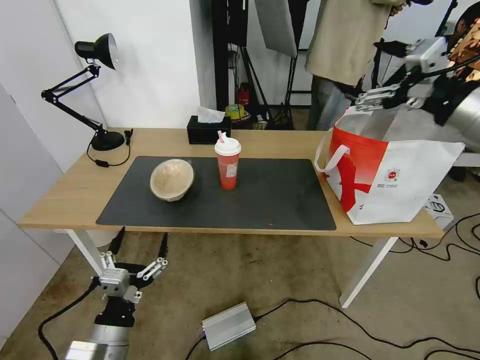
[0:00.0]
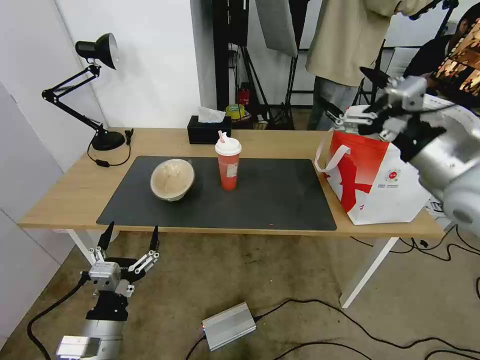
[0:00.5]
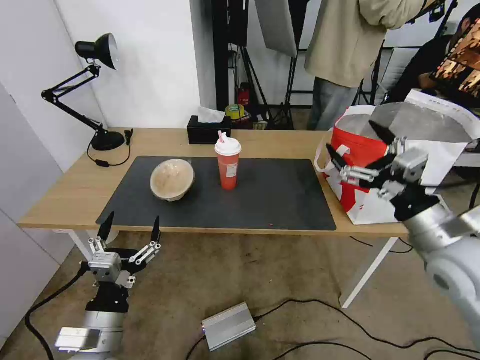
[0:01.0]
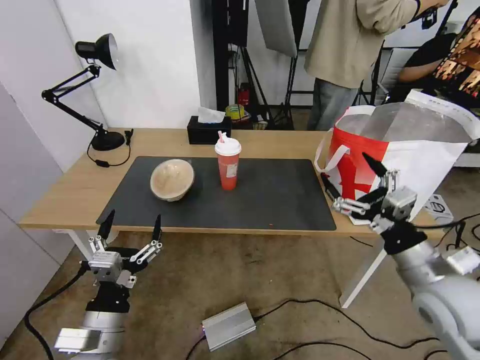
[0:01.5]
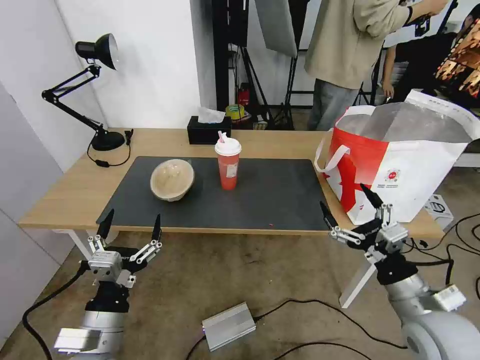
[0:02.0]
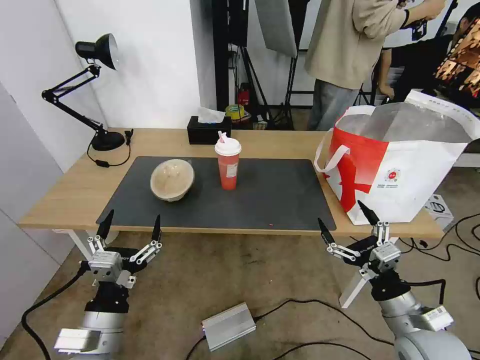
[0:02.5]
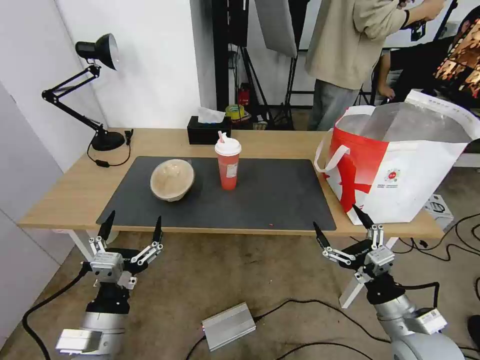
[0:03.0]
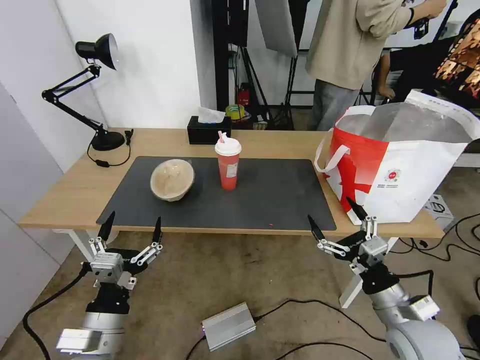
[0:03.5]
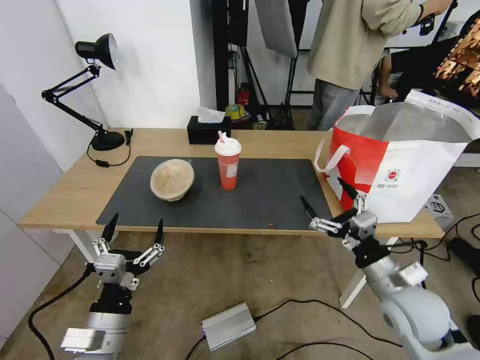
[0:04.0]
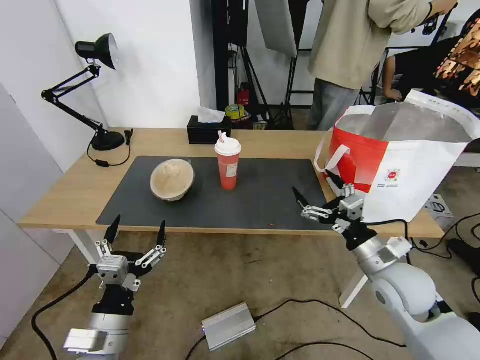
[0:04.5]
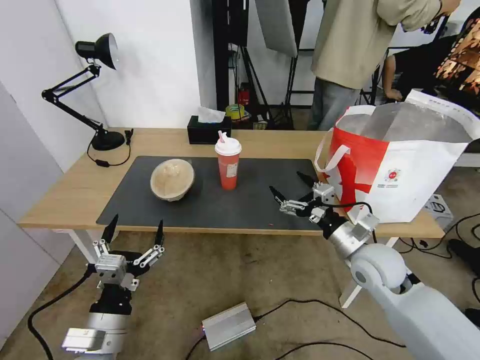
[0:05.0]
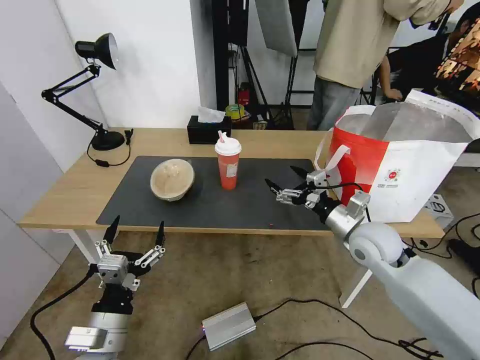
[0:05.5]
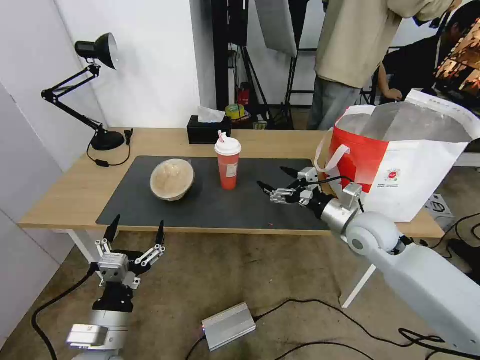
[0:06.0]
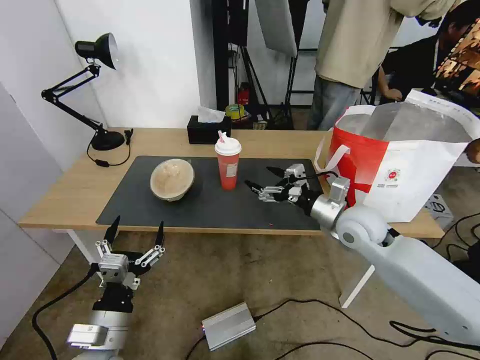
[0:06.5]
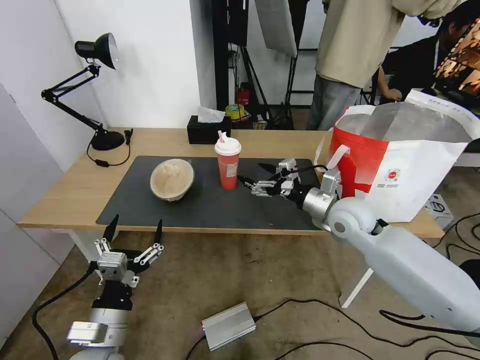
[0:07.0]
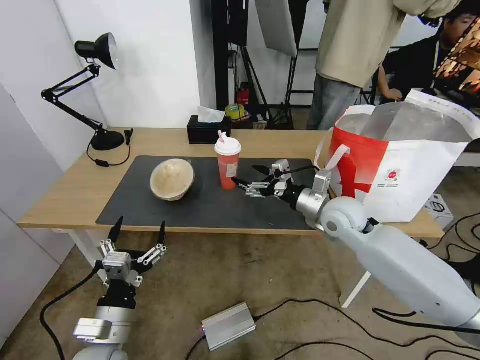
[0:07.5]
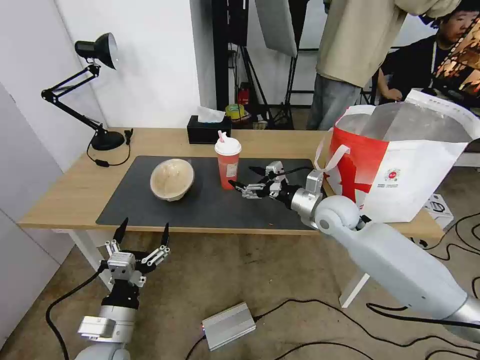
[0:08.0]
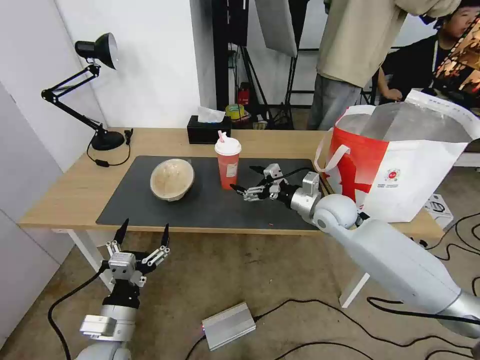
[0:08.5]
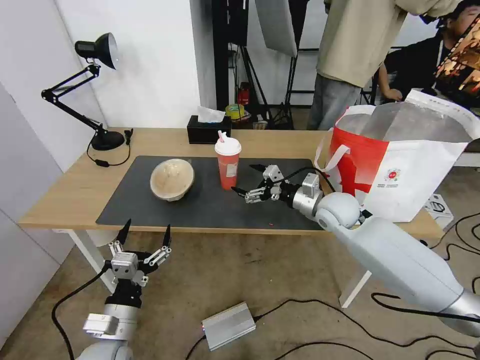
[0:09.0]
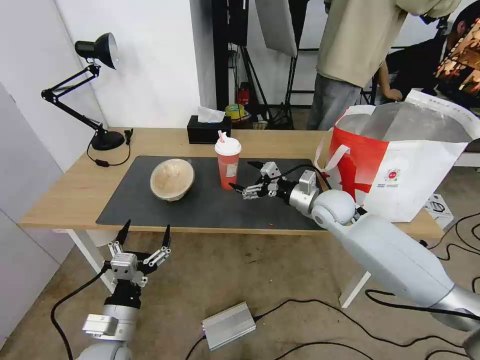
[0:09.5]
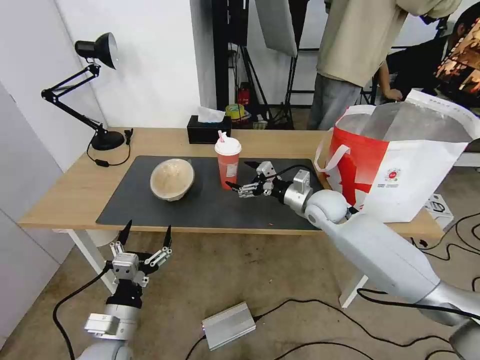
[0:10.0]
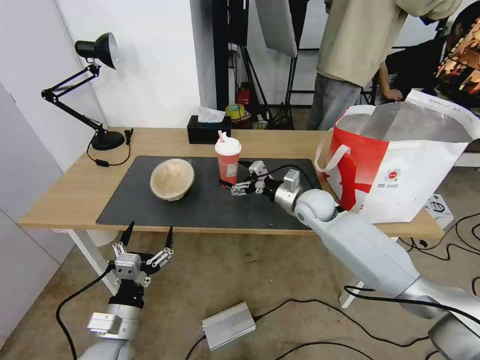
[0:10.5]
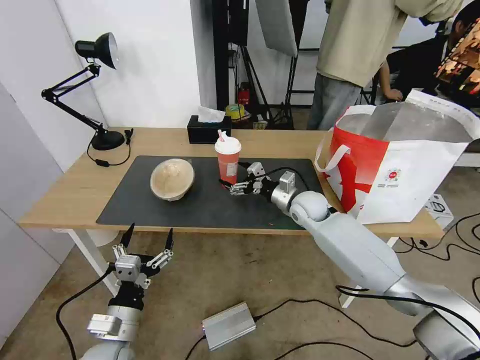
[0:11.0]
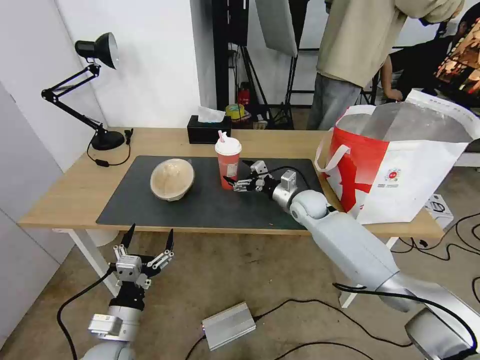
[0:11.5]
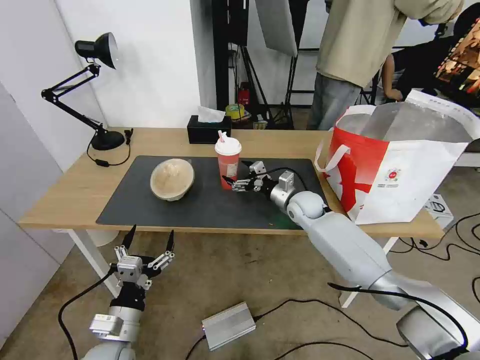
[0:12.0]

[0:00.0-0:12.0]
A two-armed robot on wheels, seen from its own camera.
Task of the whole recording: Pick up the trash from the table and place it into the takeout bag.
0.0 to 2.0 s: The right gripper heads downward and backward, covering about 30 cm.
2.0 to 4.0 s: The grippers stay close to where they were, moving slightly.
4.0 to 6.0 s: The right gripper travels forward by approximately 15 cm.
6.0 to 8.0 s: The right gripper moves forward and to the left, some 10 cm.
8.0 to 10.0 s: The grippers stay close to where they were, moving slightly.
10.0 to 12.0 s: The right gripper moves downward and forward, about 10 cm.

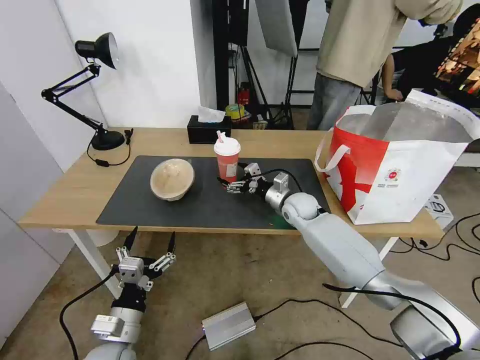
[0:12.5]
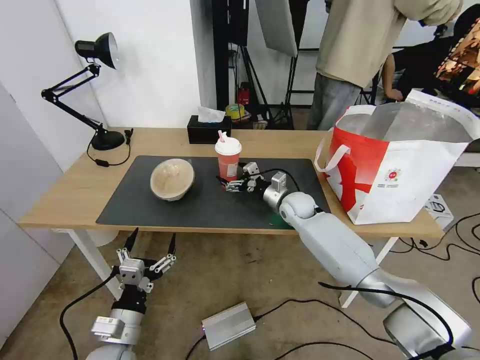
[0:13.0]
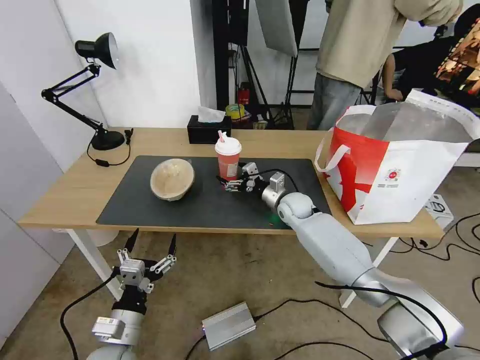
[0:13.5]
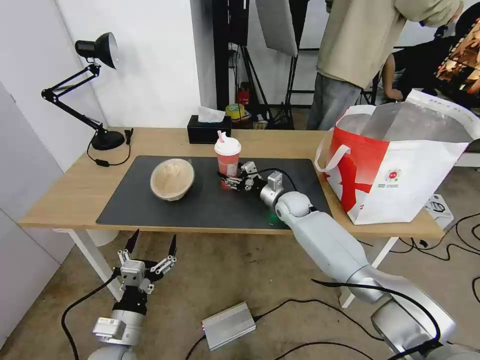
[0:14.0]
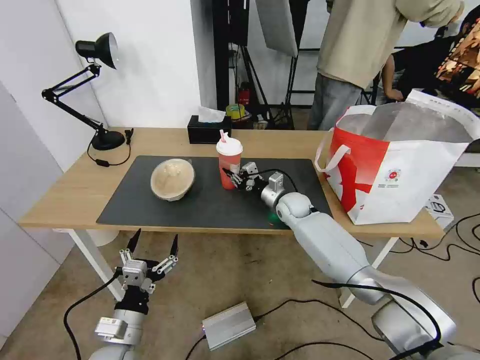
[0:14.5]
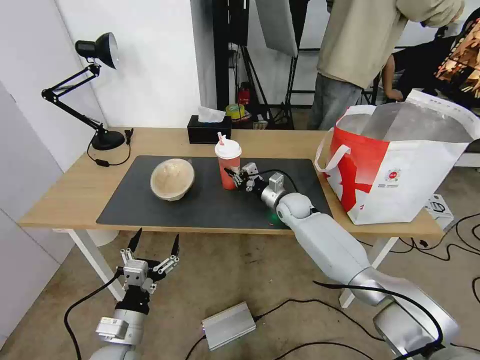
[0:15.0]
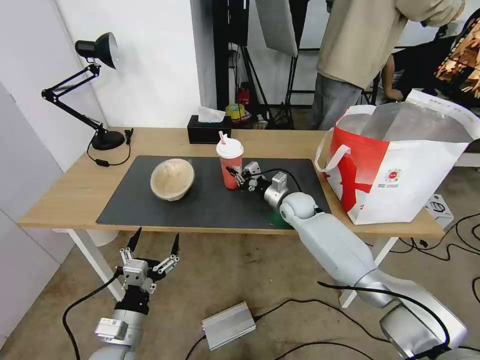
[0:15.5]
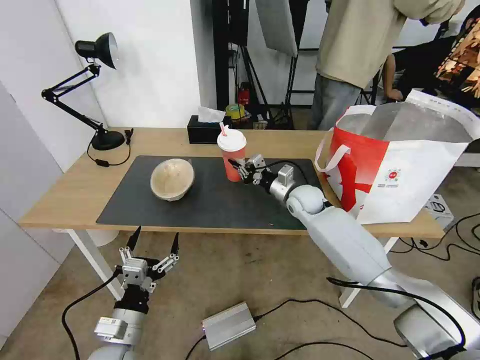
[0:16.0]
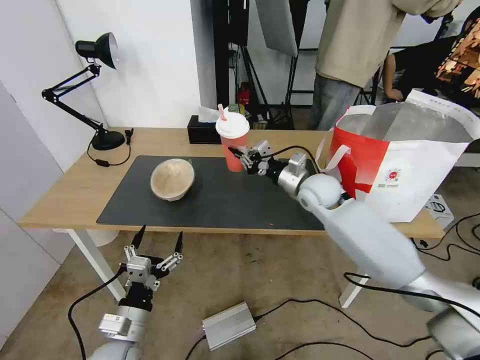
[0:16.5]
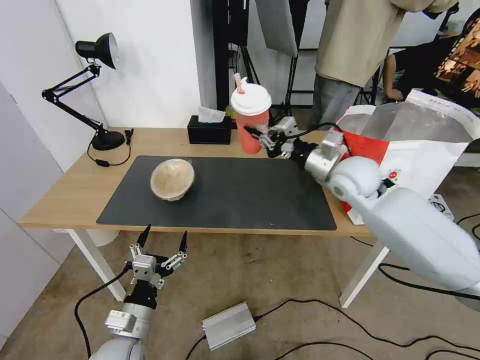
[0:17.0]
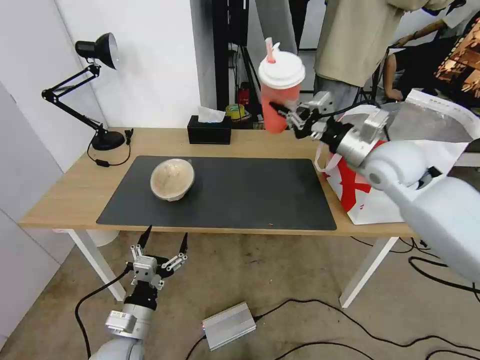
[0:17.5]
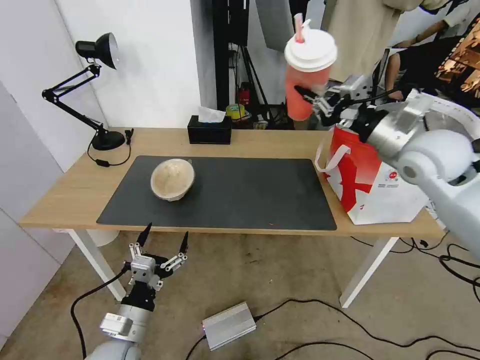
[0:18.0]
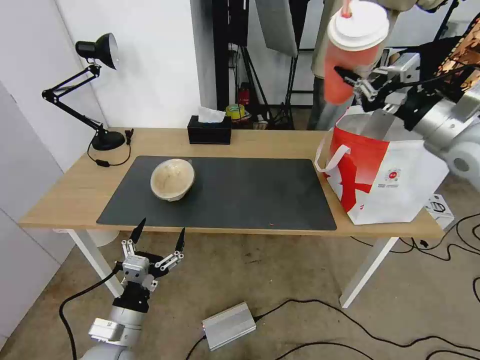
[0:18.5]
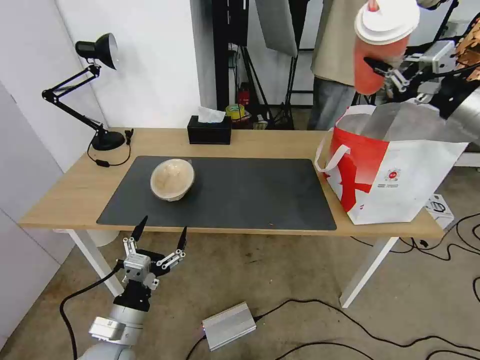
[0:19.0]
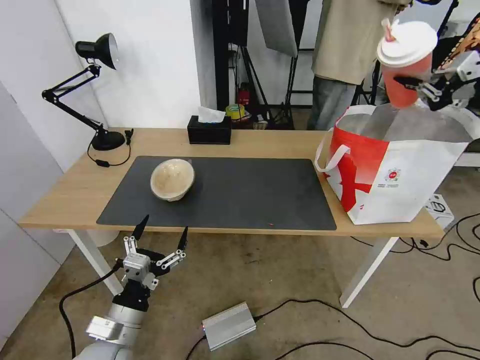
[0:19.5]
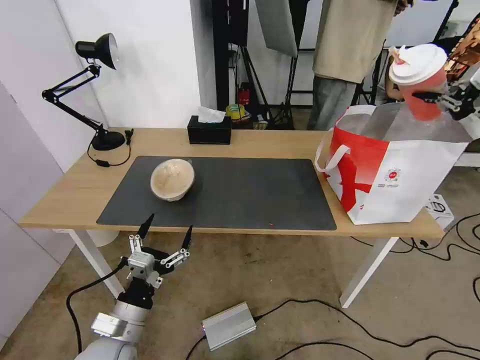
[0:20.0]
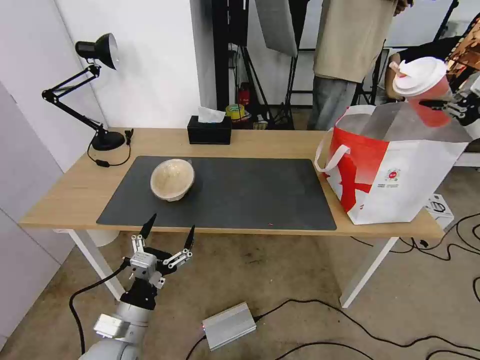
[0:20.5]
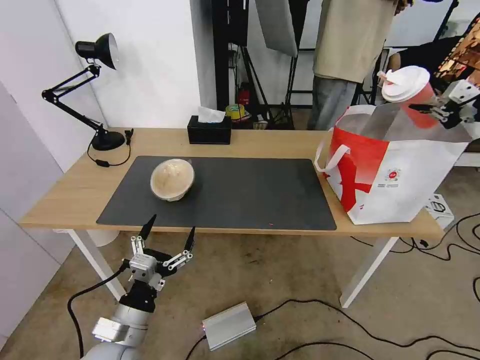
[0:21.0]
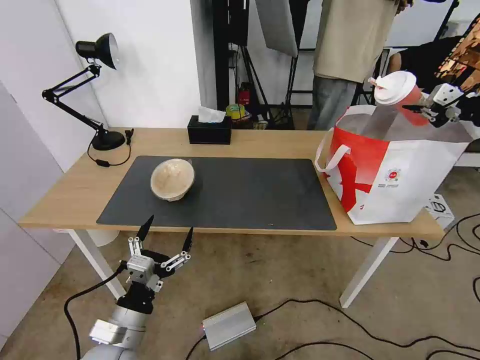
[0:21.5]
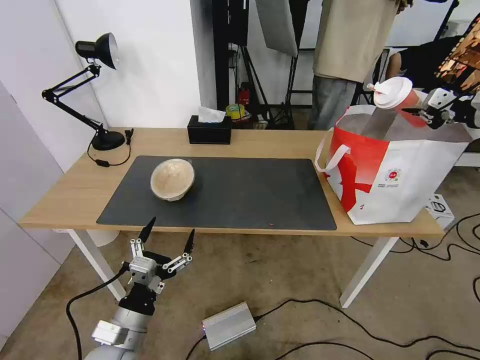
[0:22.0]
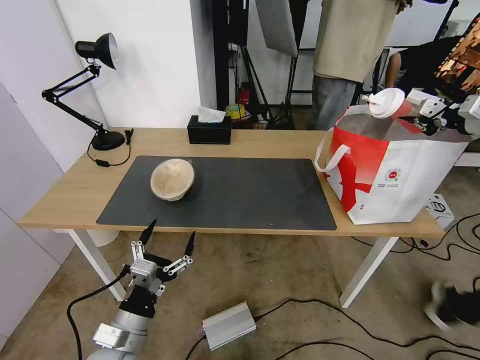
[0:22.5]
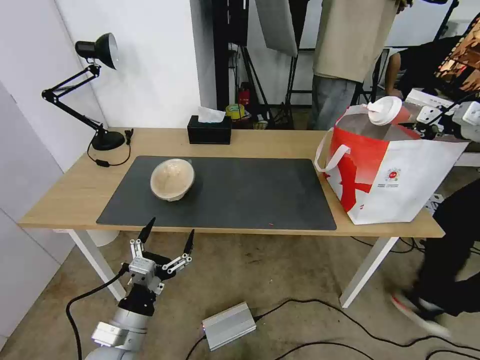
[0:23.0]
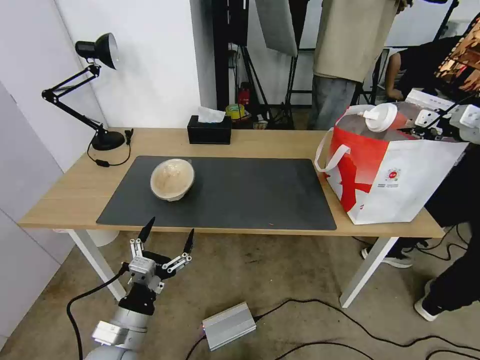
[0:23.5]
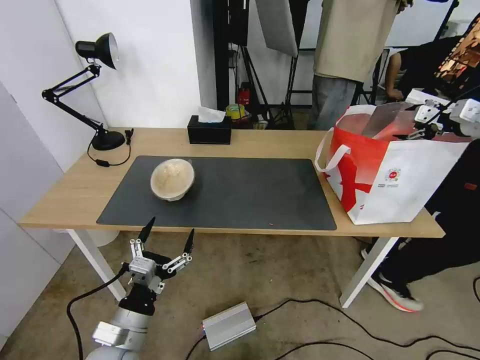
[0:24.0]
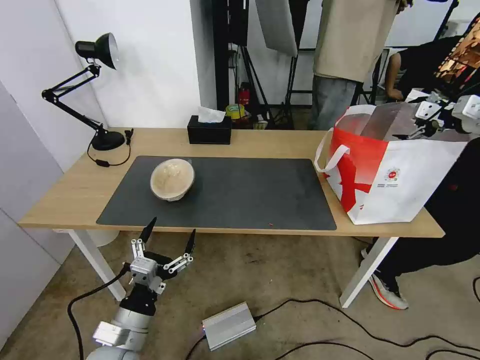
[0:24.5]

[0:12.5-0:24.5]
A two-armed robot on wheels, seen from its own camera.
Task of the whole recording: Pick up the trash from the table and place it into the takeout bag.
12.5 to 14.5 s: The right gripper closes up.
14.5 to 16.5 s: The right gripper shifts some 10 cm upward.
16.5 to 18.5 s: The right gripper travels upward, to the right and backward by approximately 30 cm.
18.5 to 20.5 s: The right gripper travels to the right by approximately 15 cm.
20.5 to 22.5 s: The right gripper is displaced forward and downward by some 10 cm.
22.5 to 24.5 s: The right gripper opens.

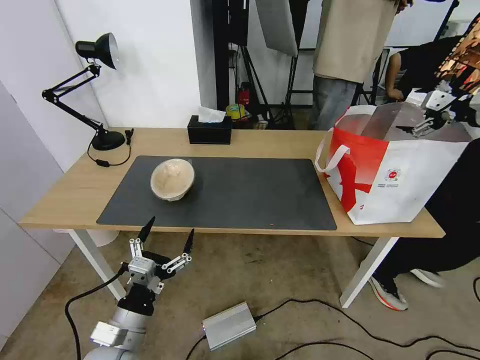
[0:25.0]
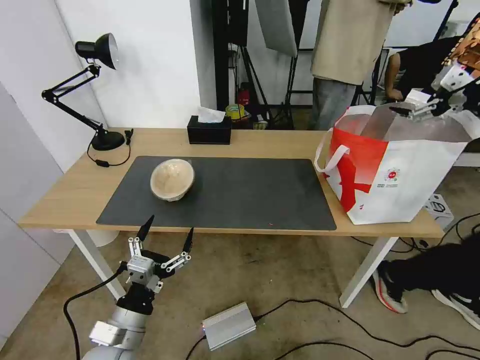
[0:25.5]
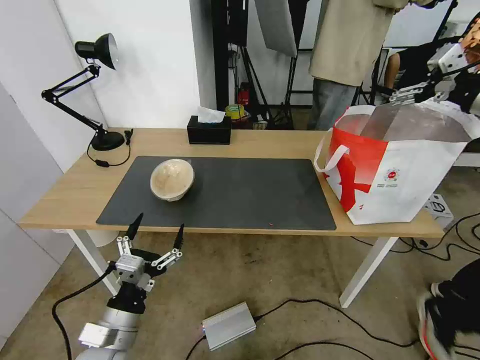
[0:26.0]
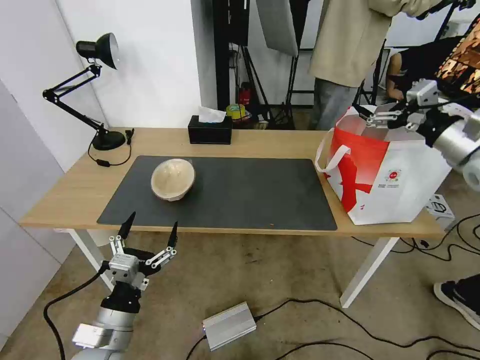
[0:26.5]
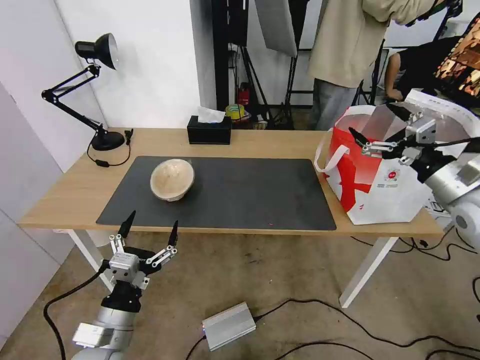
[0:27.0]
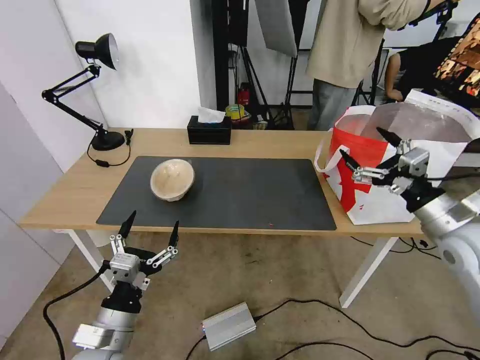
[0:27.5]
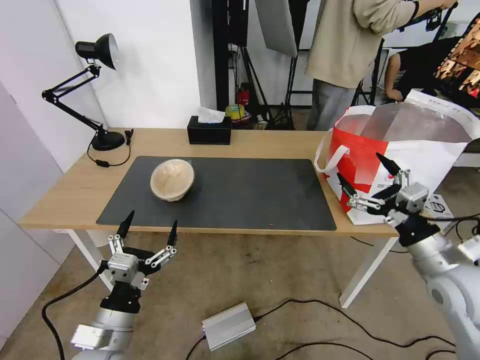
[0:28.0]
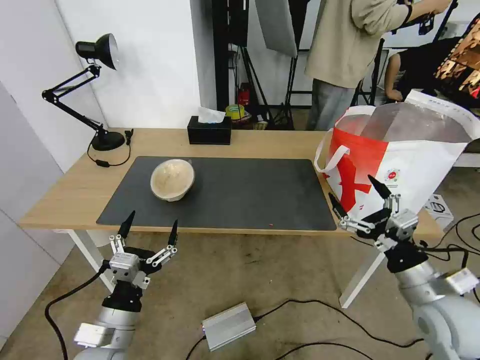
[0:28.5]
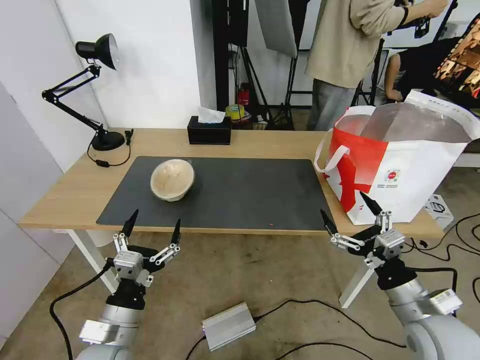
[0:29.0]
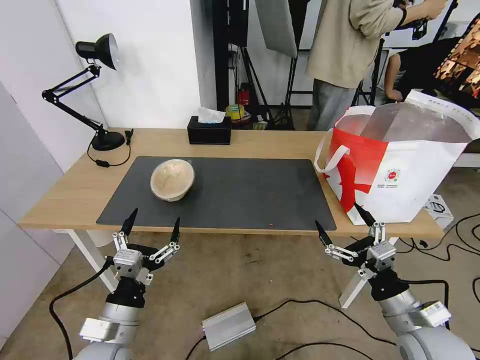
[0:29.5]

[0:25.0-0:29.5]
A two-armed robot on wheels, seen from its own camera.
Task of the whole recording: Pick up the trash from the table and place it into the takeout bag.
25.0 to 27.0 s: The right gripper goes roughly 20 cm downward, backward and to the left.
27.0 to 29.5 s: The right gripper heads downward, backward and to the left, covering about 25 cm.
